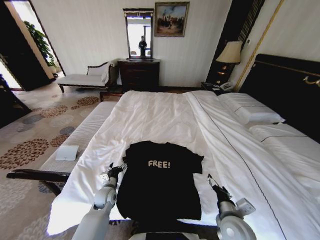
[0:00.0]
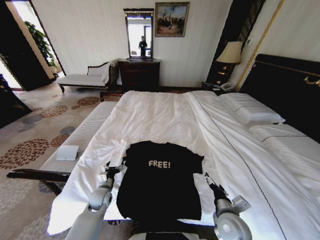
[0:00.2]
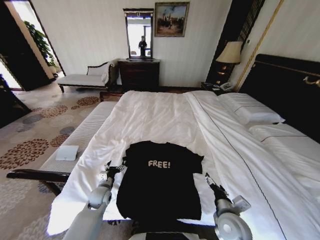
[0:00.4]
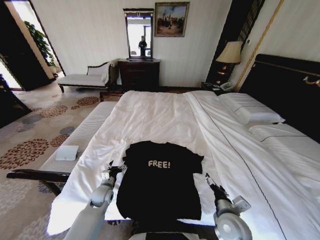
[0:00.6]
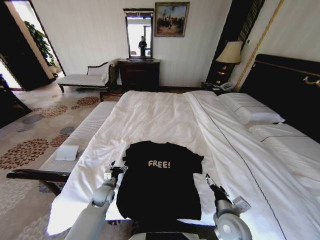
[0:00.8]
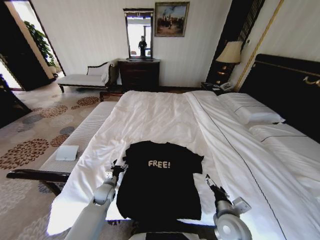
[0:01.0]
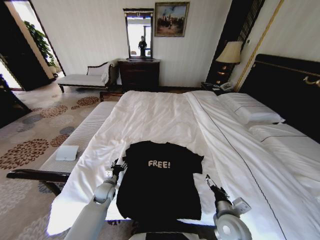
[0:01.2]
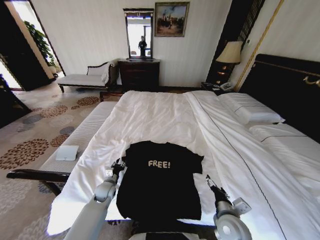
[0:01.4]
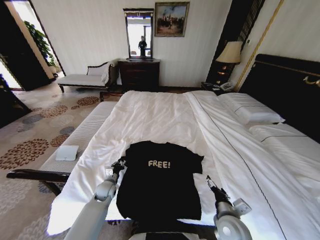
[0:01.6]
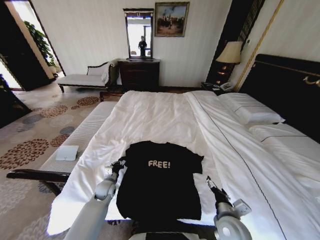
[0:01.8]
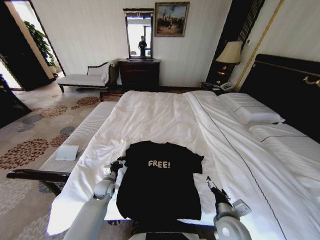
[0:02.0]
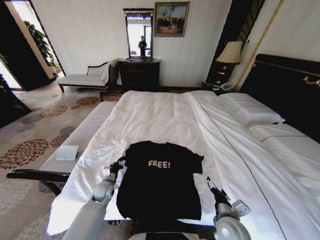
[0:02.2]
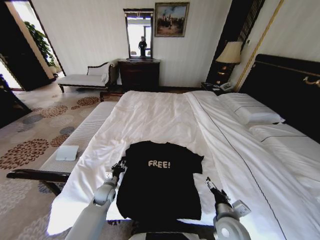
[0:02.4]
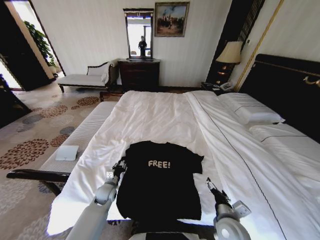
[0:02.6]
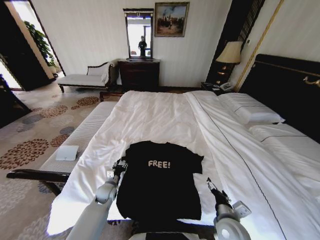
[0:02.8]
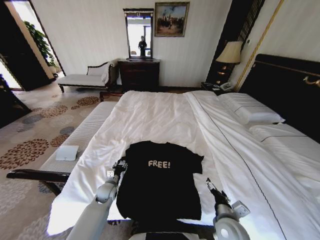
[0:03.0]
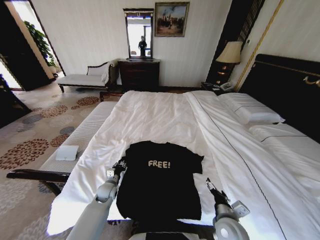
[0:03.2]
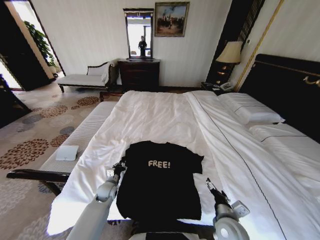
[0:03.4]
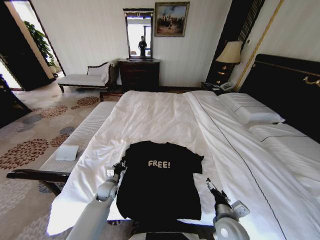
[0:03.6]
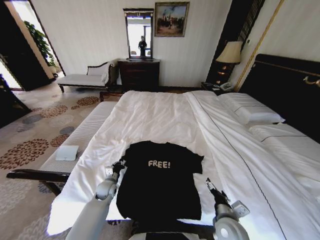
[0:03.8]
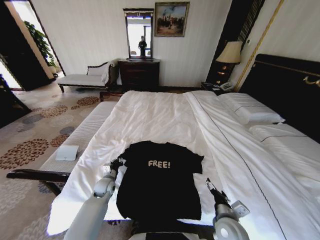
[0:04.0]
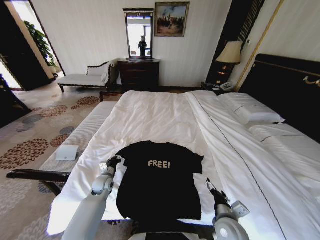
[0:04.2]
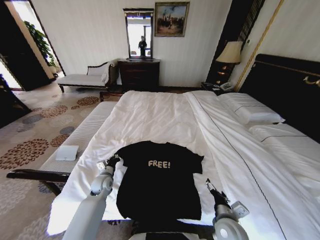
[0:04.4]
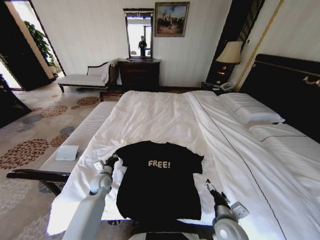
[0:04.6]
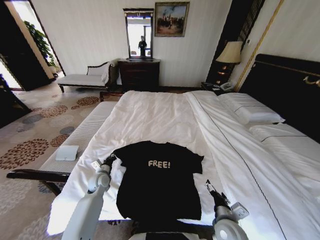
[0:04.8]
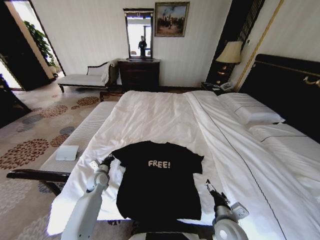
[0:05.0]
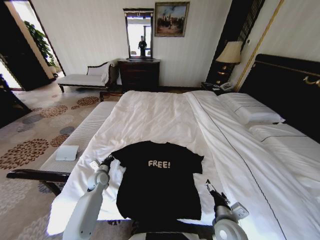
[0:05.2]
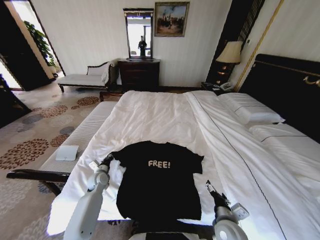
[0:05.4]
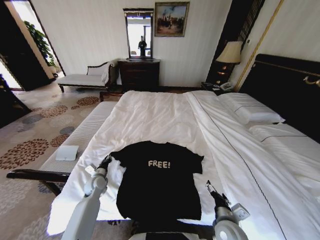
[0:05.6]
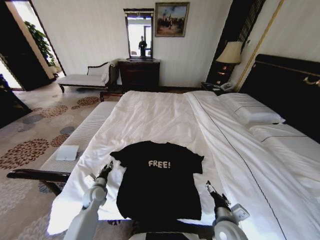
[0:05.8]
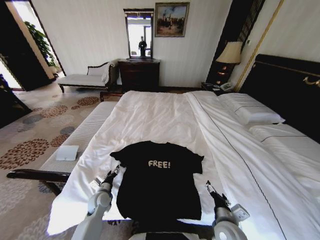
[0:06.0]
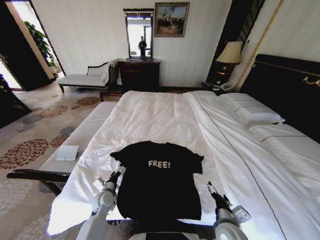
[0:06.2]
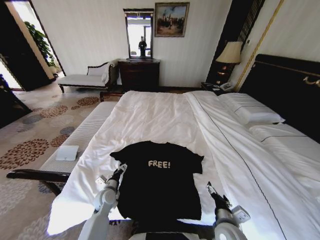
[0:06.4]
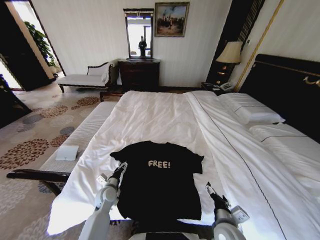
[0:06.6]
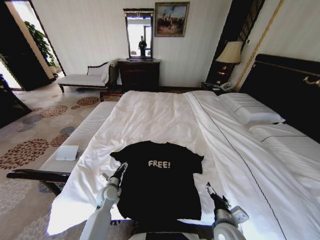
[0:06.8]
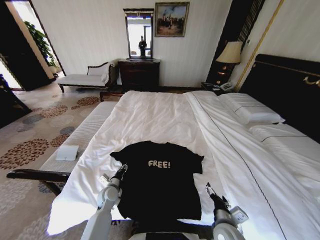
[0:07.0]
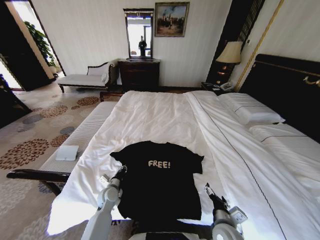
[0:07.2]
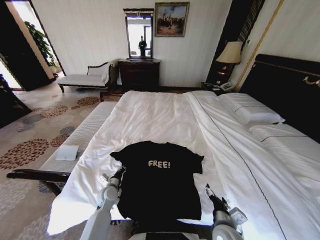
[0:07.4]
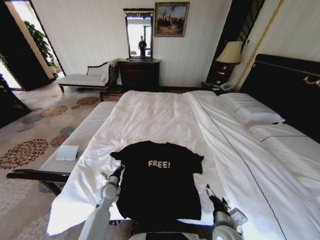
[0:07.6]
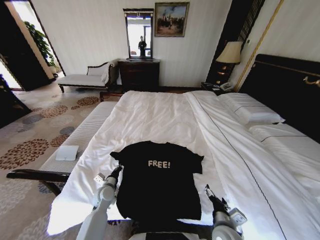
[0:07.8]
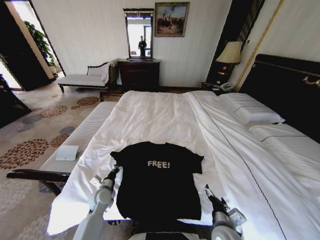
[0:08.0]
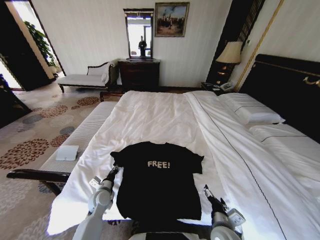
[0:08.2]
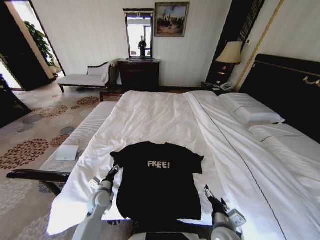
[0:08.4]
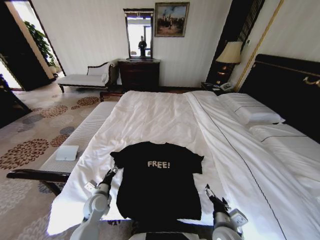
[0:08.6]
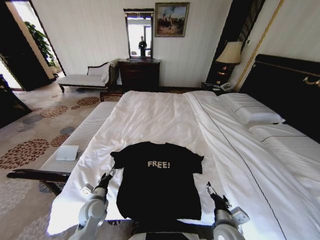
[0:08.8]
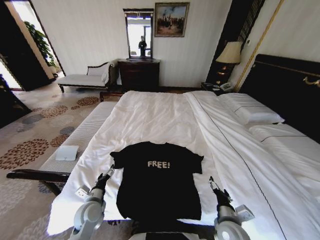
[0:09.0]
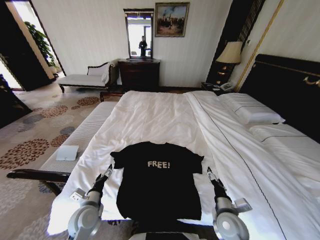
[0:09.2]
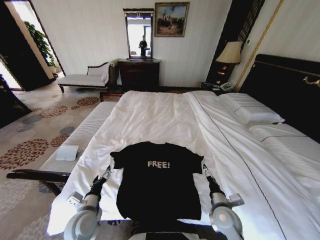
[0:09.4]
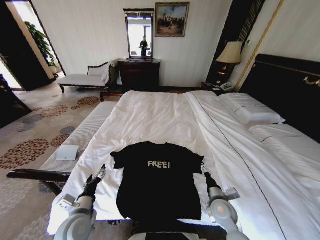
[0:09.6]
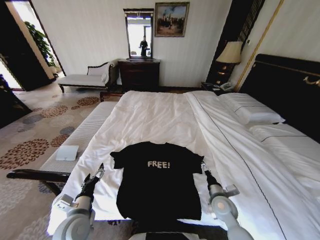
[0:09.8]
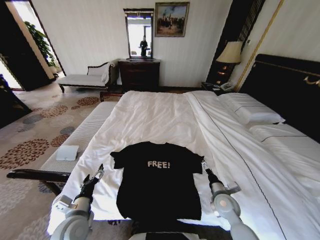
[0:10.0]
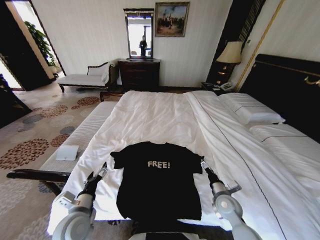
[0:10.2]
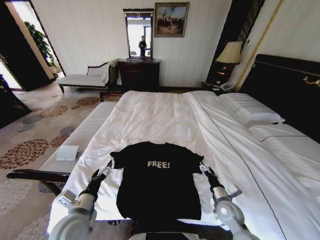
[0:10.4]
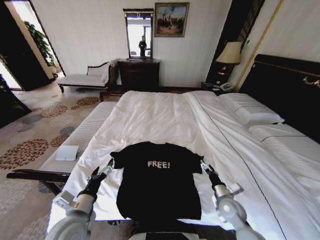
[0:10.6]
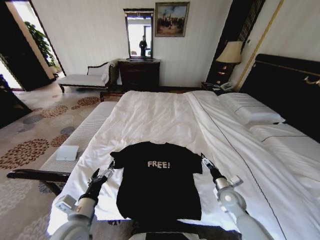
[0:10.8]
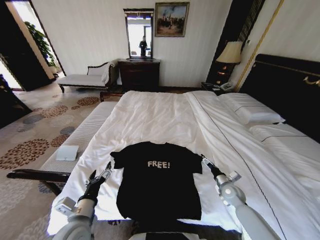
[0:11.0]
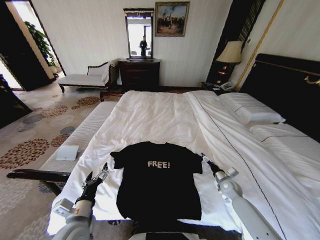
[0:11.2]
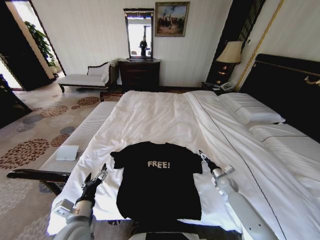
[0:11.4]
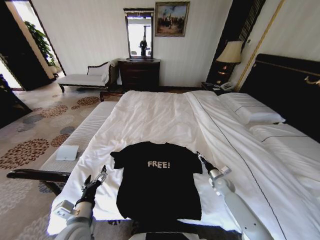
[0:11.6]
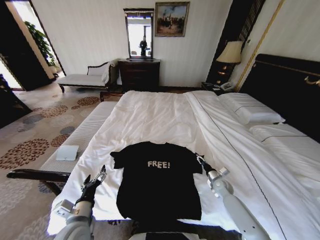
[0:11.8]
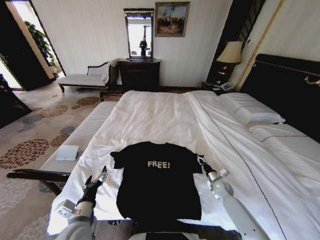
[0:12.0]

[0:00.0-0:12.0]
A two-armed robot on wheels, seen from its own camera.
Task of the whole recording: Fold the clothes on the bed.
0:00.0 to 0:01.6: The left gripper closes up.
0:01.6 to 0:03.0: The grippers make only small movements.
0:03.0 to 0:04.4: The left gripper heads upward, covering roughly 5 cm, and closes its fingers.
0:04.4 to 0:06.0: The left gripper heads backward, covering approximately 5 cm, and opens.
0:06.0 to 0:07.6: The left gripper closes.
0:07.6 to 0:09.0: The left gripper travels backward by some 10 cm, and opens up.
0:09.0 to 0:10.4: The left gripper is displaced upward and backward by roughly 10 cm, while the right gripper heads forward and to the right, covering approximately 10 cm.
0:10.4 to 0:12.0: The right gripper heads forward, downward and to the right, covering some 15 cm, and closes.

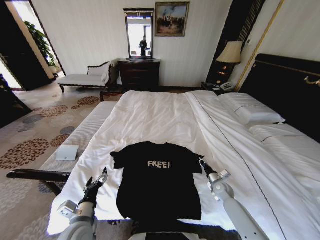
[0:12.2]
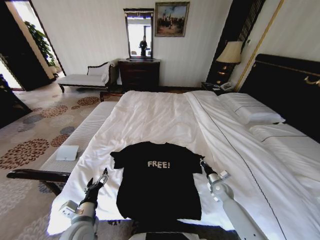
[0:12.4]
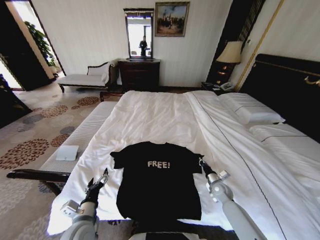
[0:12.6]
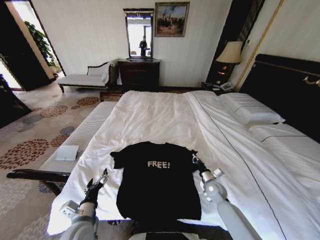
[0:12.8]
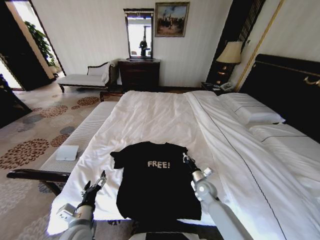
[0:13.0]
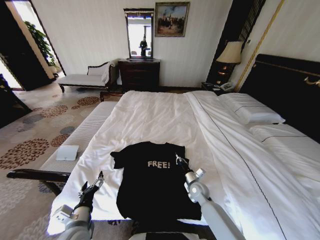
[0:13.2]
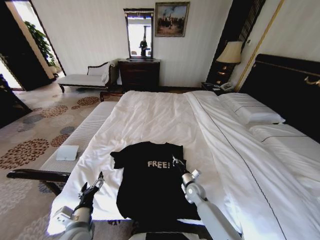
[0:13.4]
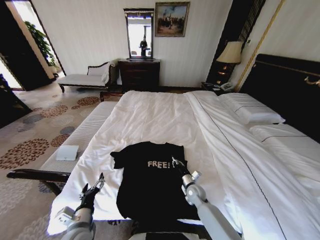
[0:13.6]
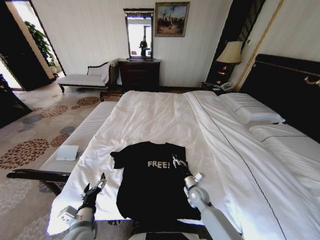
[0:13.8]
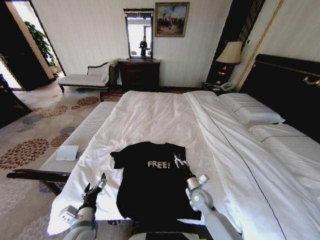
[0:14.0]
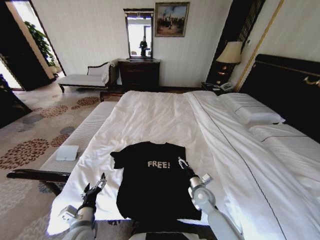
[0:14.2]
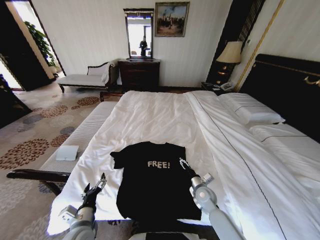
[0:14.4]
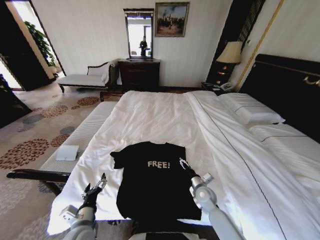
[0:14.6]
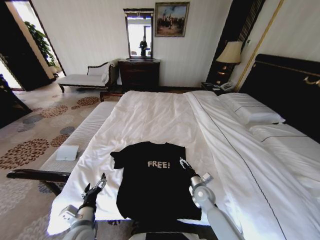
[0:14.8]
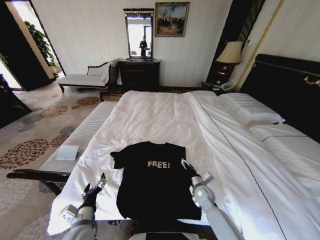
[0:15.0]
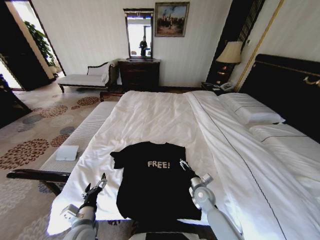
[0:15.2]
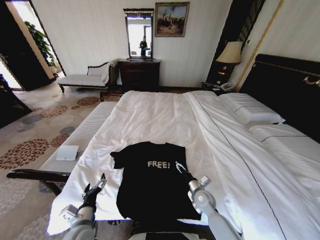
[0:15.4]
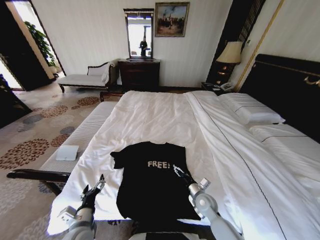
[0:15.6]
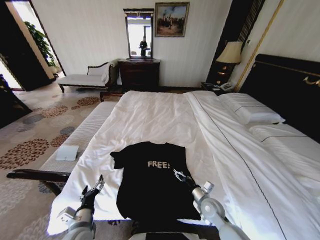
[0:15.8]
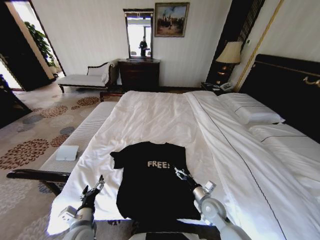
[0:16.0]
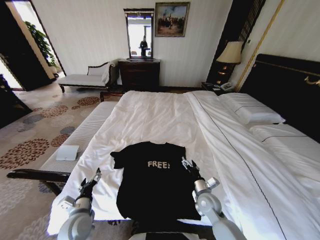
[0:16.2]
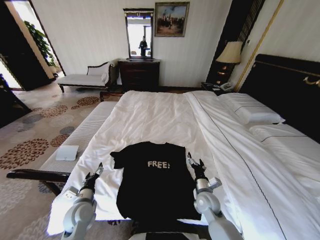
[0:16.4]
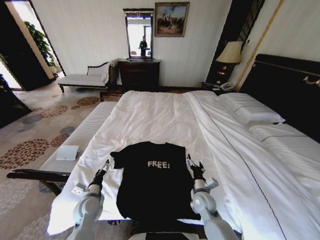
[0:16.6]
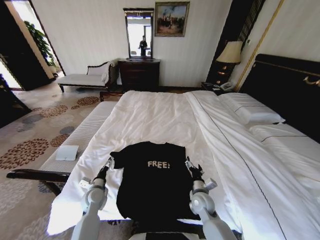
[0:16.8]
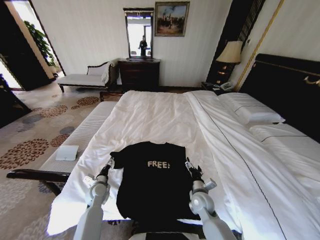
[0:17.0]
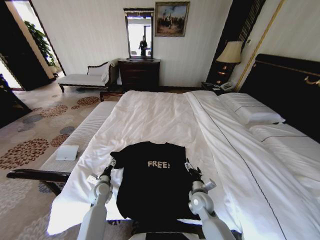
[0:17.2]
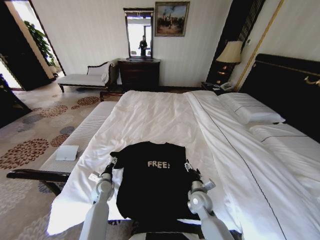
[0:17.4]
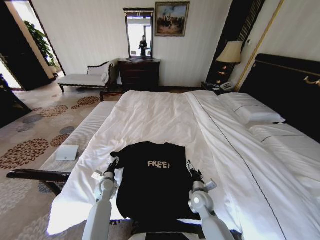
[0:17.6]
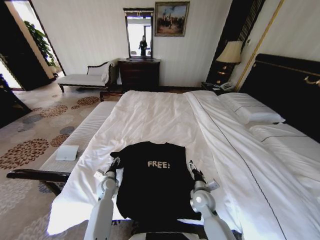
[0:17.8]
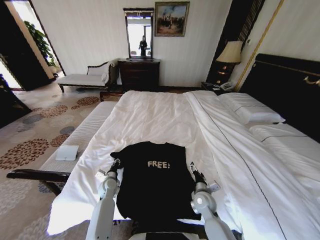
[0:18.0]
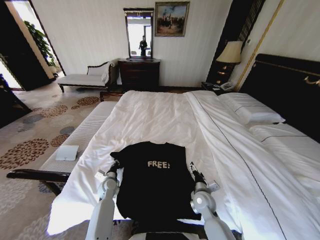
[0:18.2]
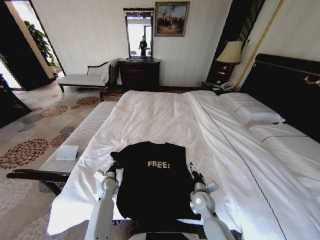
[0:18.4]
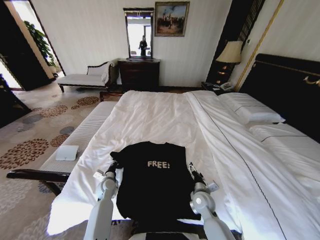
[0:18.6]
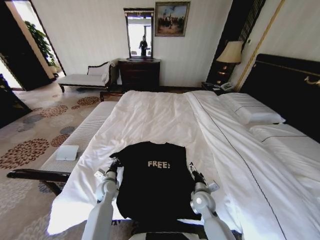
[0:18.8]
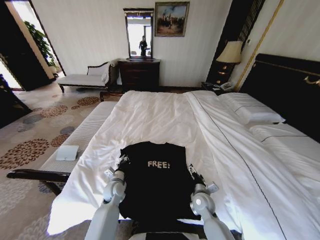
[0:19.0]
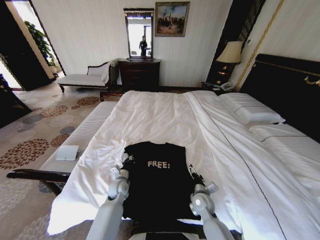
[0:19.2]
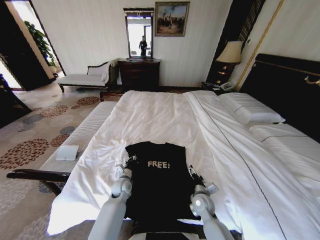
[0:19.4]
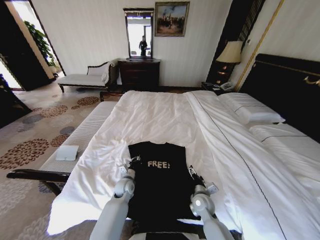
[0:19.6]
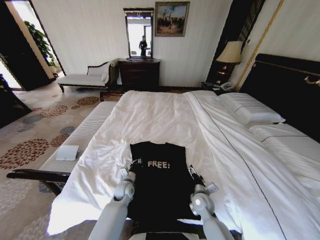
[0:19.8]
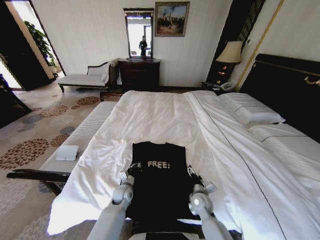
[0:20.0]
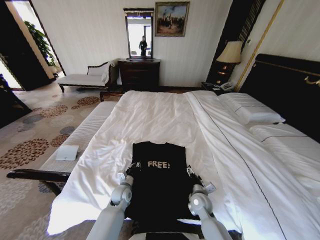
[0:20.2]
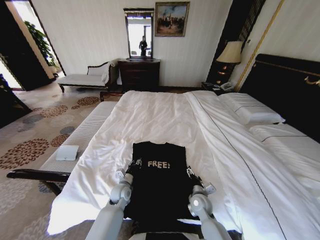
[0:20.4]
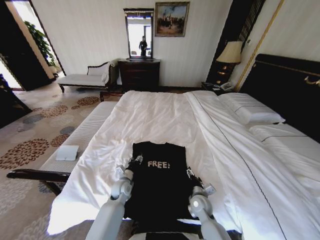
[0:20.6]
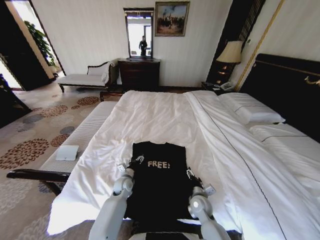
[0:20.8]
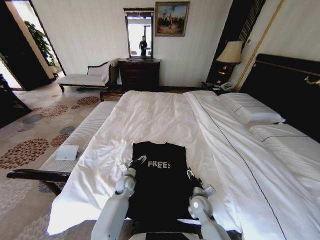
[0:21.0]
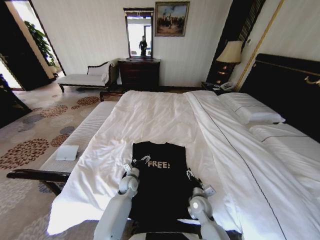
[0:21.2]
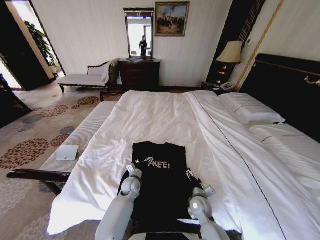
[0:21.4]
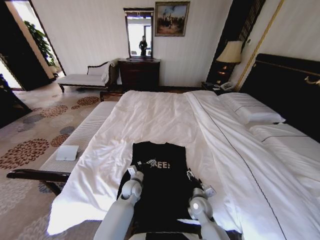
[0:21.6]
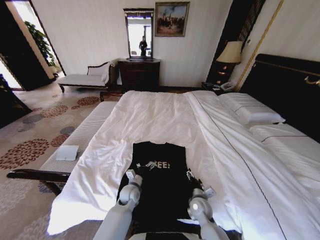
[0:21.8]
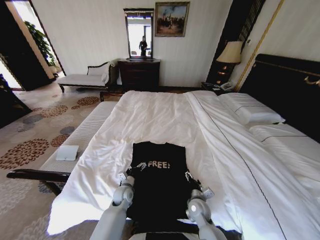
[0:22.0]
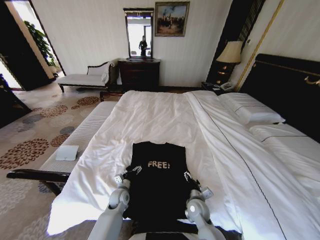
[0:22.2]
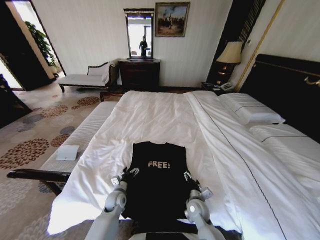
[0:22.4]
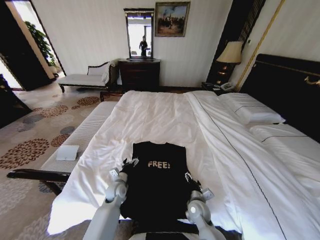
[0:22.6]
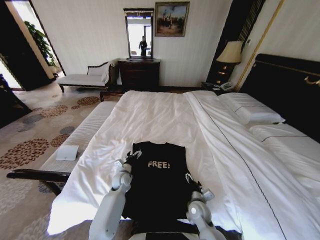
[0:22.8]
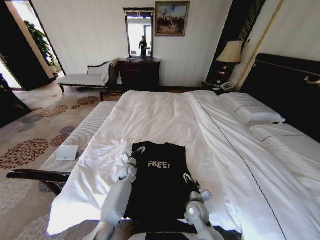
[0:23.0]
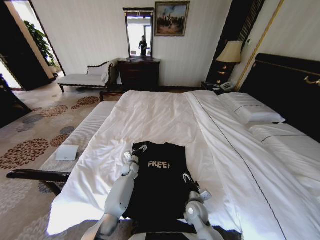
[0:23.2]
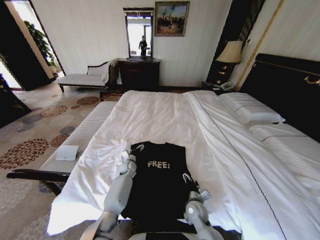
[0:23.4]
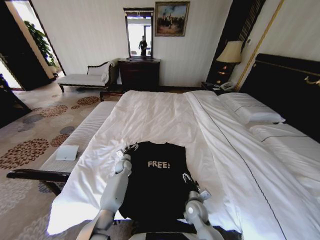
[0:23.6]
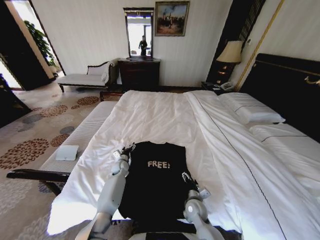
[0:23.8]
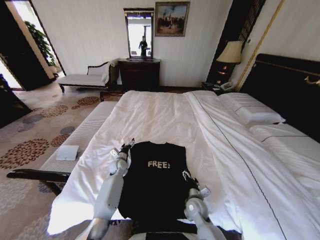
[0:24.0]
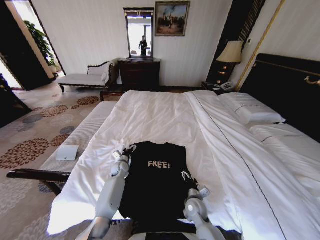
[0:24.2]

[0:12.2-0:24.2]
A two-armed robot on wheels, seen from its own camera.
Task of the whole recording: Fold the clothes on the bed.
0:12.2 to 0:13.8: The right gripper travels to the left by approximately 15 cm.
0:13.8 to 0:15.2: The right gripper opens its fingers.
0:15.2 to 0:16.6: The left gripper travels forward by about 10 cm. The right gripper ends up about 5 cm from where it was.
0:16.6 to 0:18.2: The left gripper is displaced forward and downward by about 15 cm, and closes its fingers.
0:18.2 to 0:19.8: The left gripper is displaced to the right by some 10 cm.
0:19.8 to 0:21.2: The left gripper opens its fingers.
0:21.2 to 0:22.6: The left gripper moves to the left, some 5 cm.
0:22.6 to 0:24.2: The left gripper goes about 10 cm forward.
